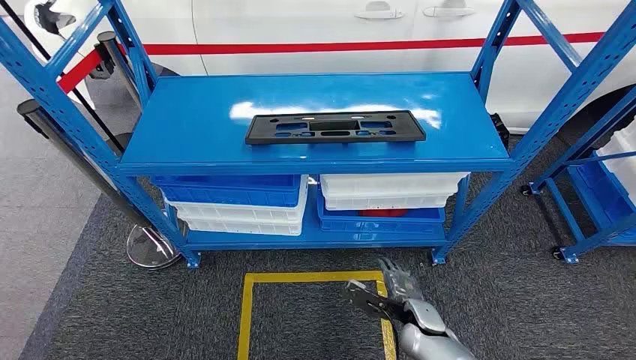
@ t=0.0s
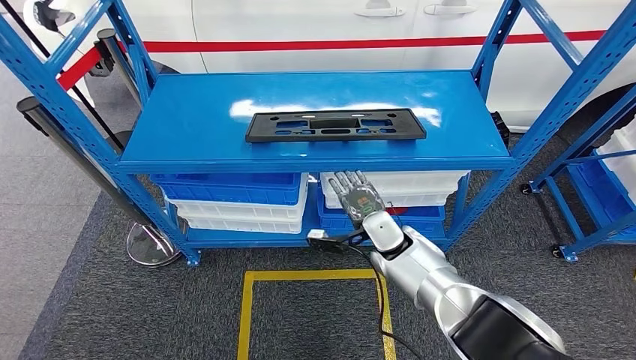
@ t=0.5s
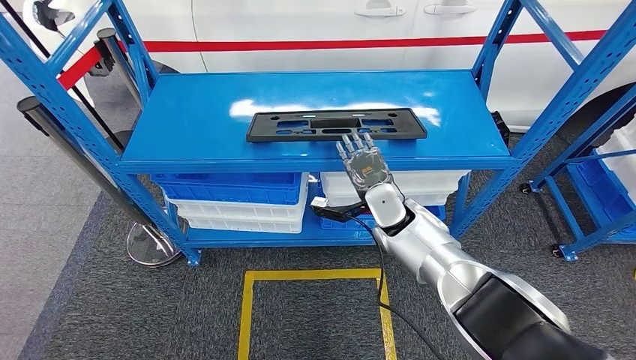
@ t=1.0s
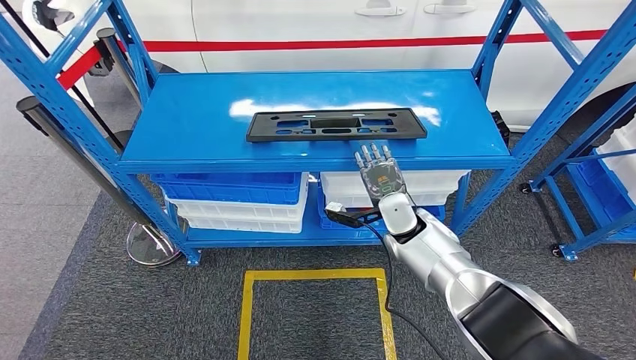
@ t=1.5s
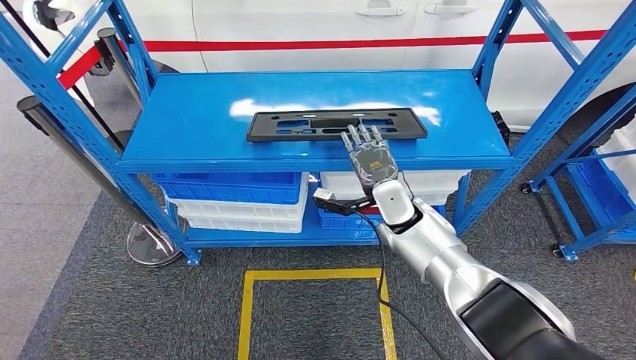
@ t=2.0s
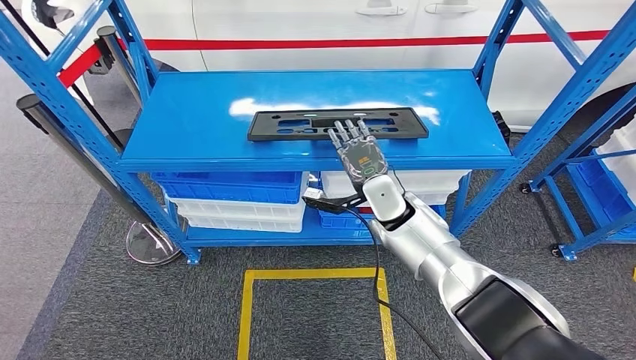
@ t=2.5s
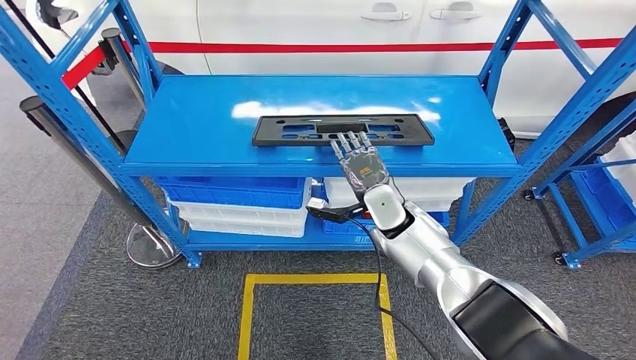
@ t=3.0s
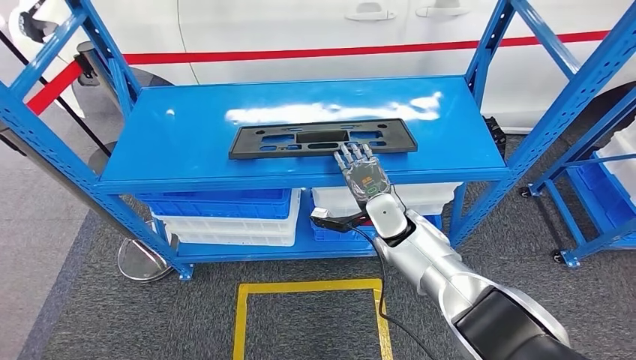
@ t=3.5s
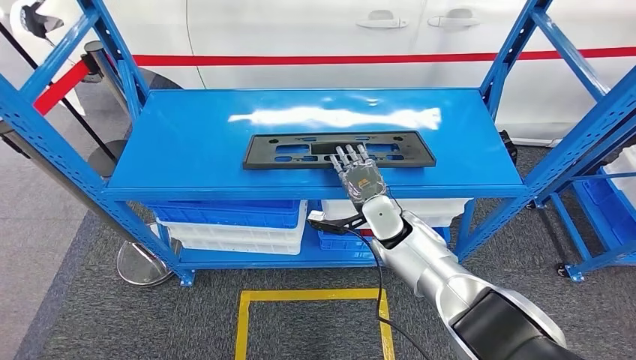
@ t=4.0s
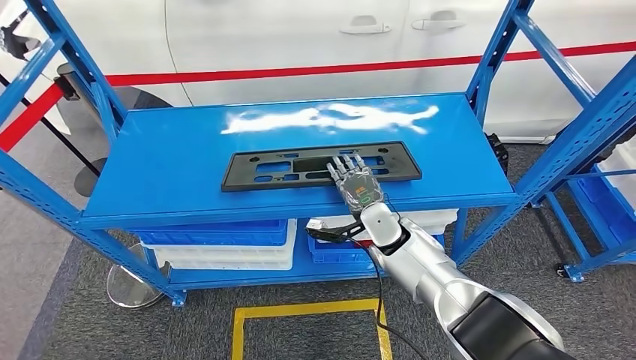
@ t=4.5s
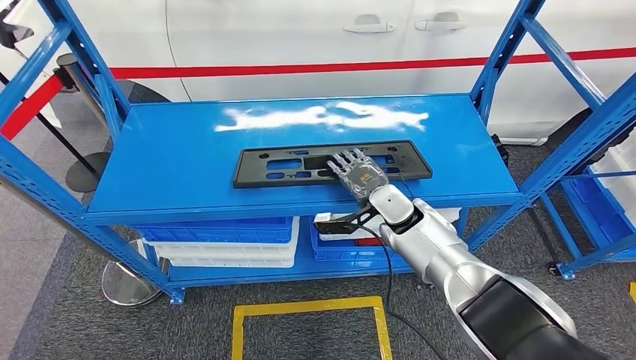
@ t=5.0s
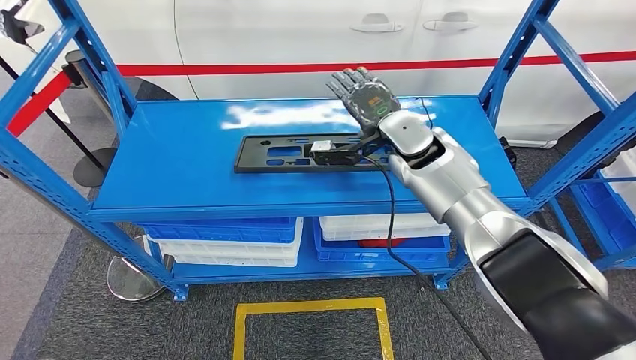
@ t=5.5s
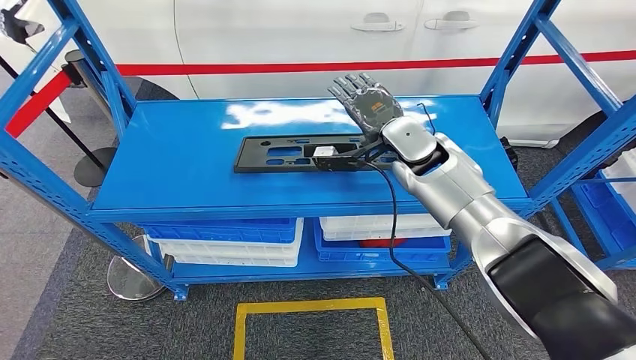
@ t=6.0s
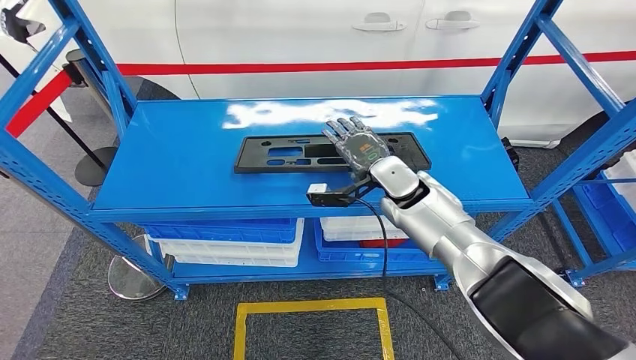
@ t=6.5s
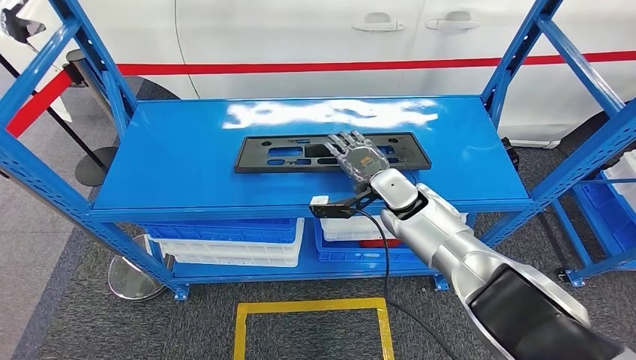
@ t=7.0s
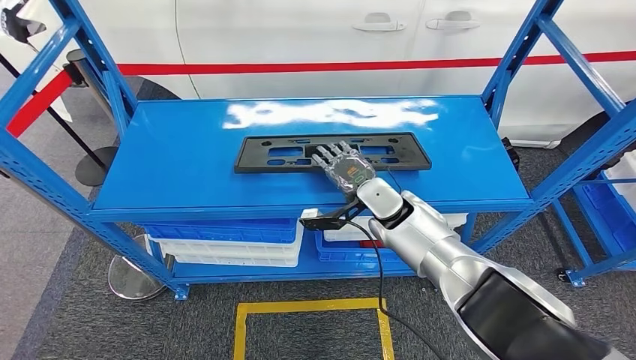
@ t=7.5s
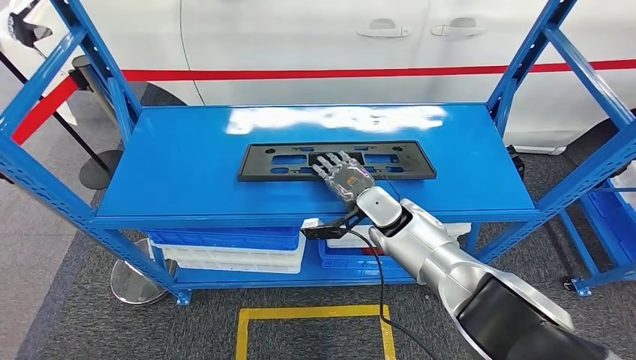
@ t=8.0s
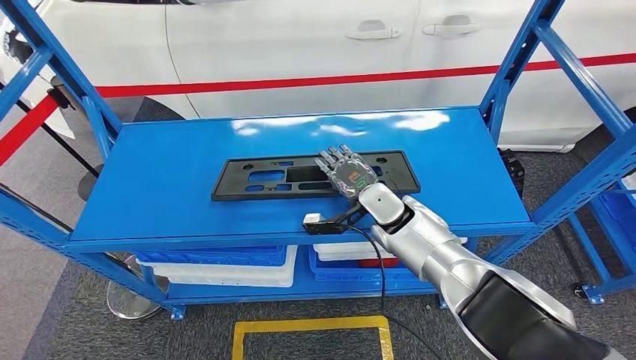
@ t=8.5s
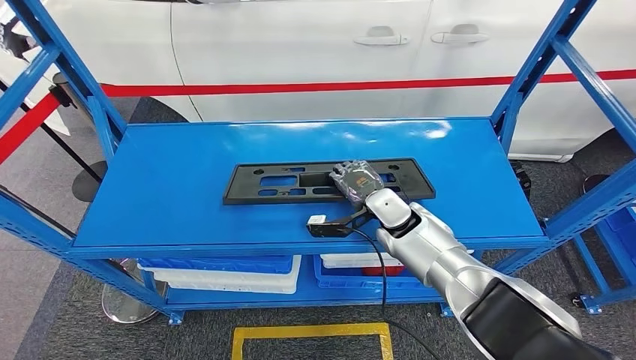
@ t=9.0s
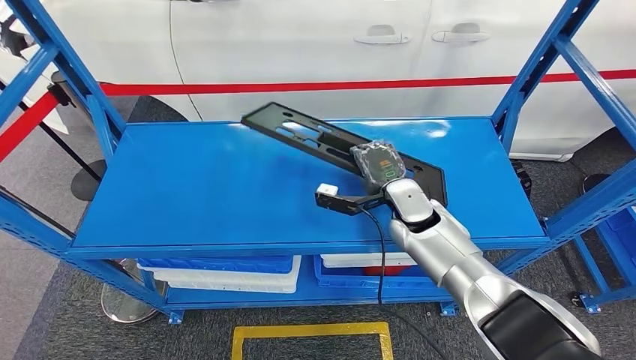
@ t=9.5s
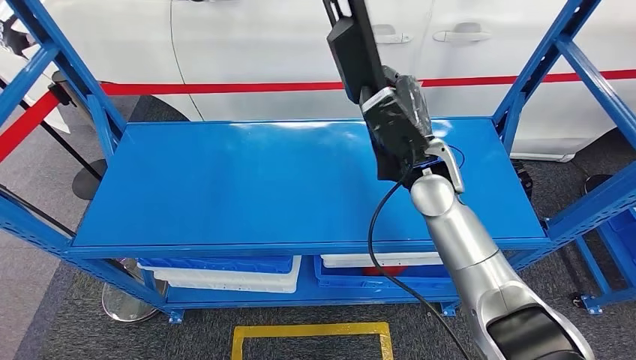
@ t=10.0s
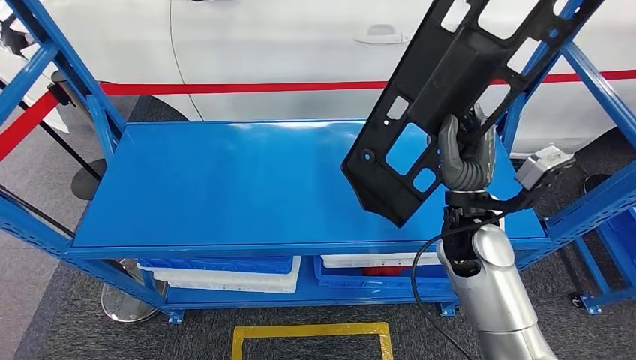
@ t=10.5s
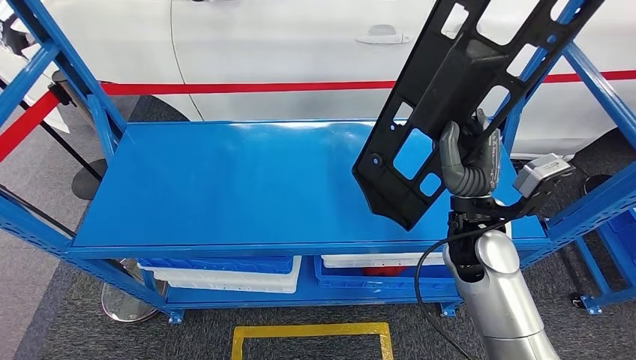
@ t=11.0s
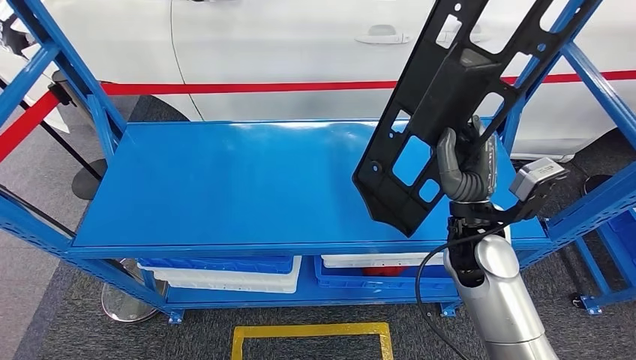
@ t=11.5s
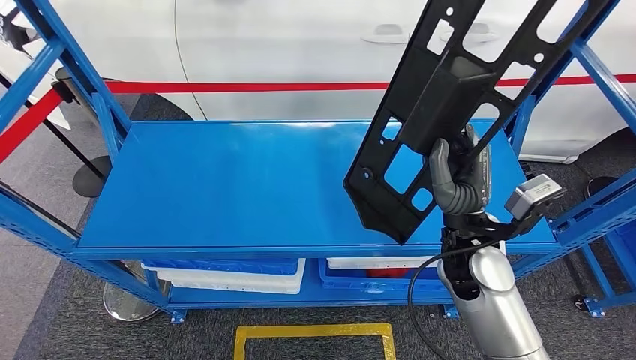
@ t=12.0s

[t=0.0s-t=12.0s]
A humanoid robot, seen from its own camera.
Step, t=0.0s to t=10.5s: Pick up the large material from the shelf.

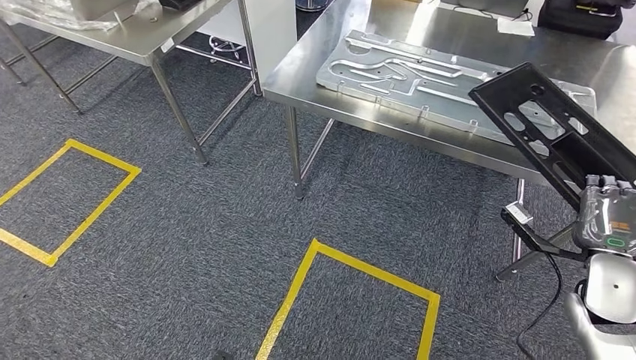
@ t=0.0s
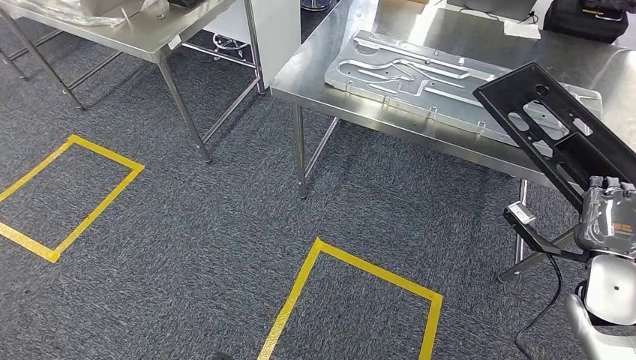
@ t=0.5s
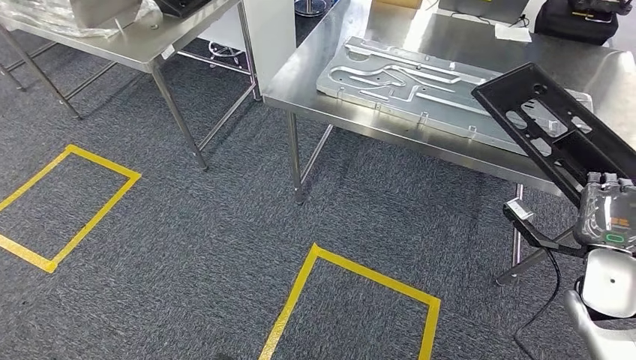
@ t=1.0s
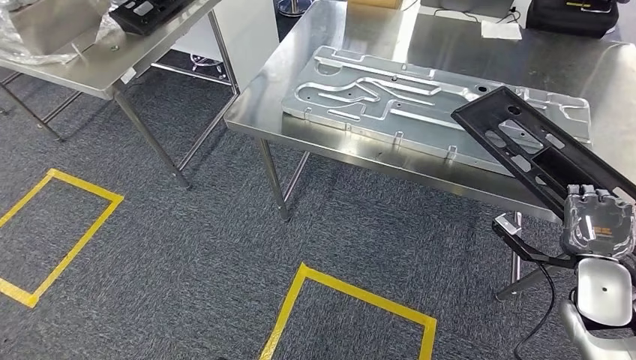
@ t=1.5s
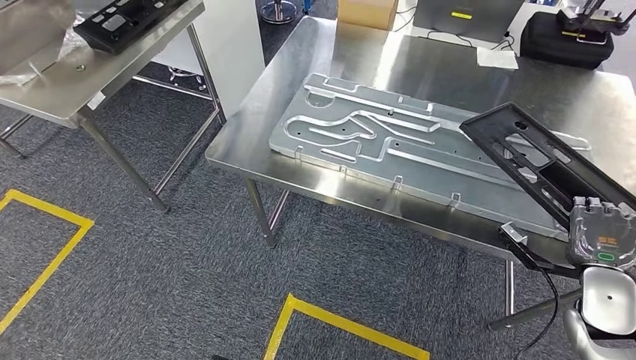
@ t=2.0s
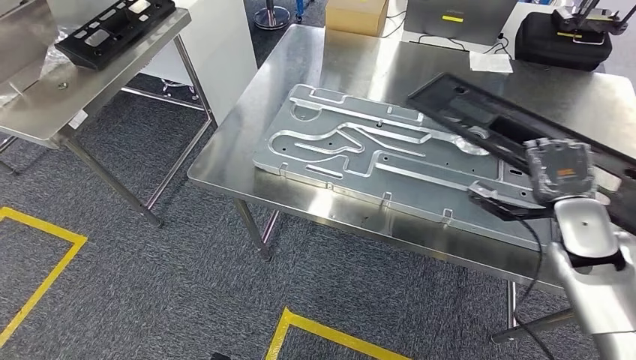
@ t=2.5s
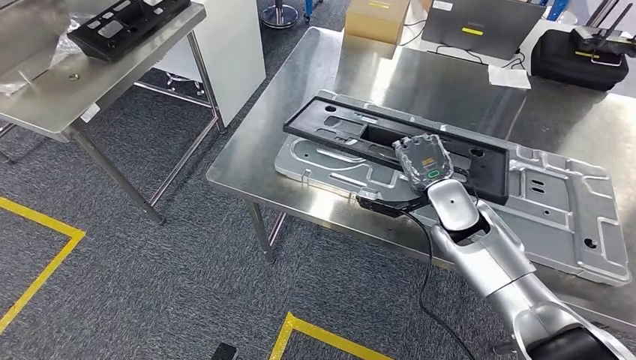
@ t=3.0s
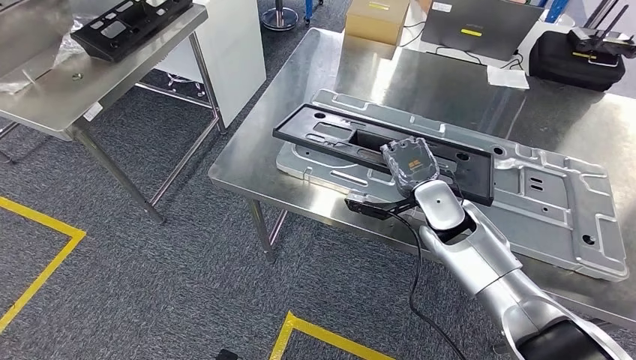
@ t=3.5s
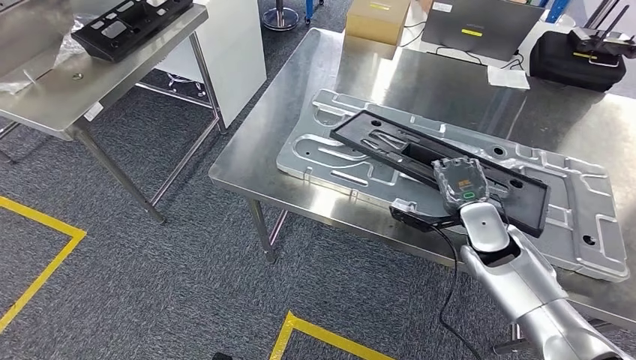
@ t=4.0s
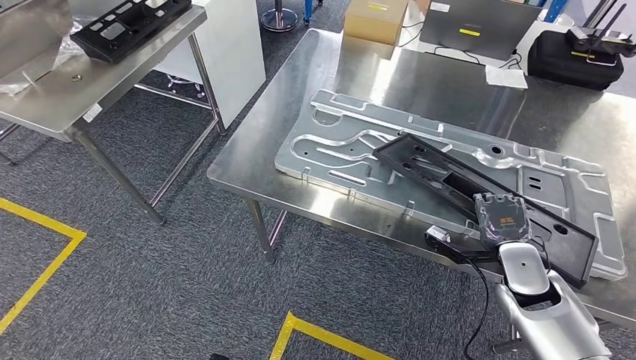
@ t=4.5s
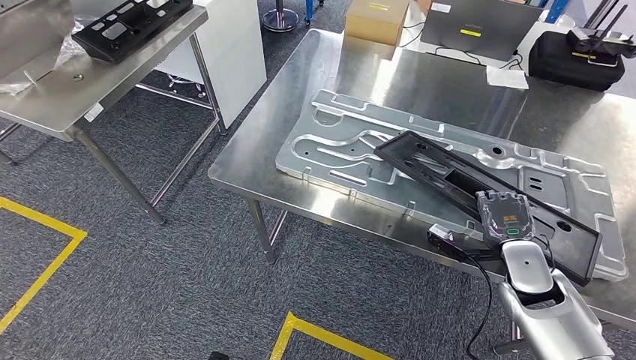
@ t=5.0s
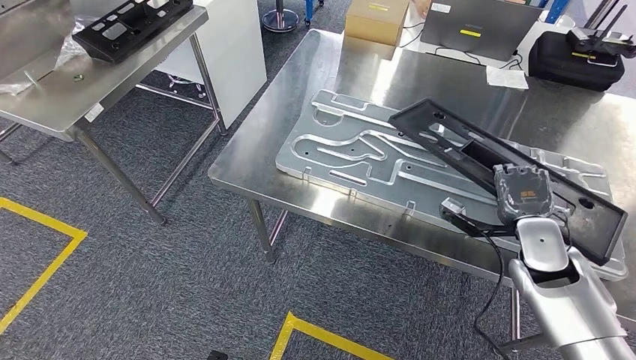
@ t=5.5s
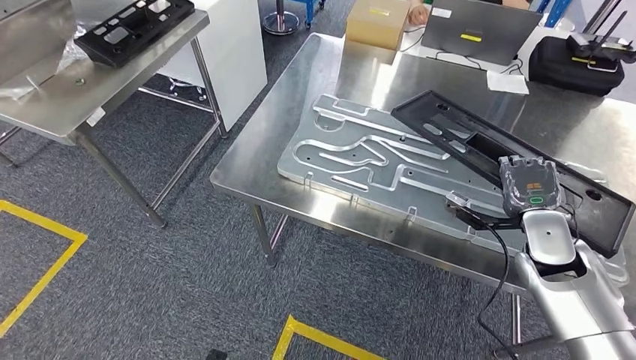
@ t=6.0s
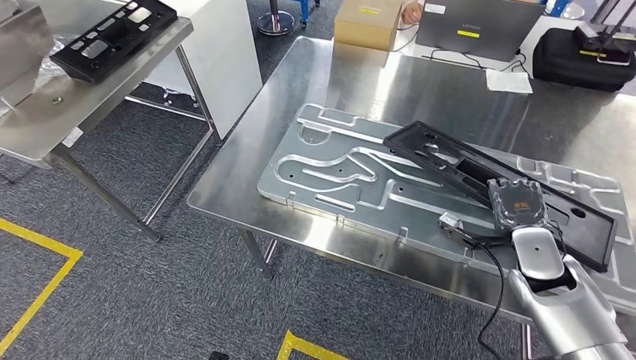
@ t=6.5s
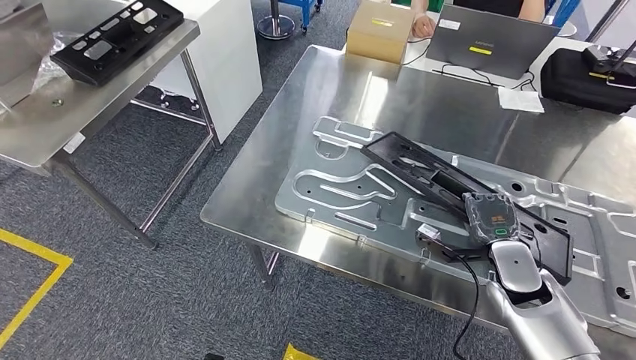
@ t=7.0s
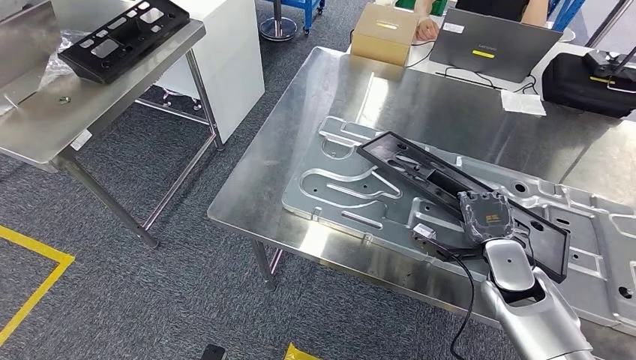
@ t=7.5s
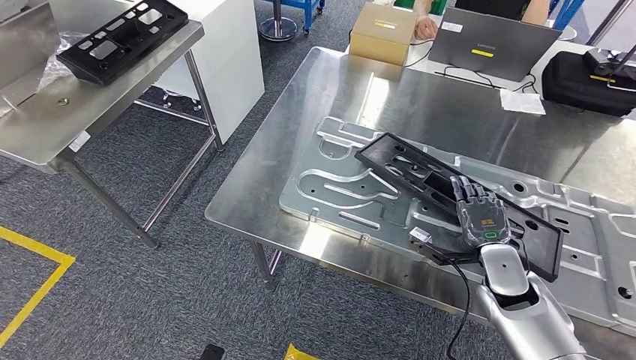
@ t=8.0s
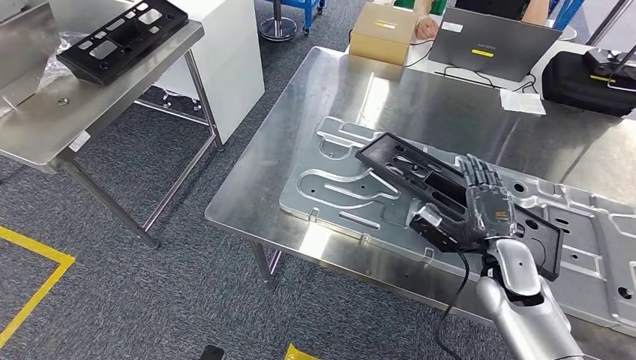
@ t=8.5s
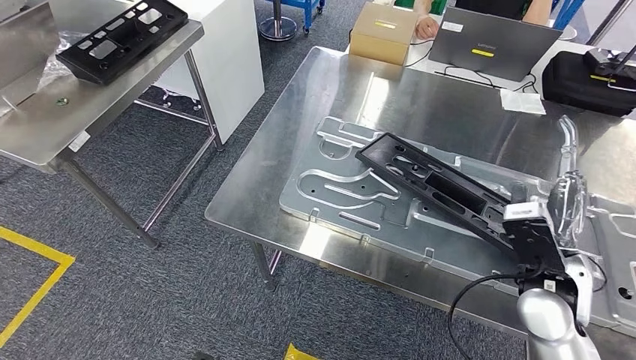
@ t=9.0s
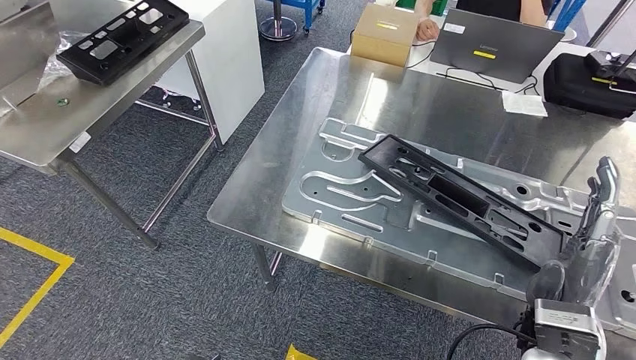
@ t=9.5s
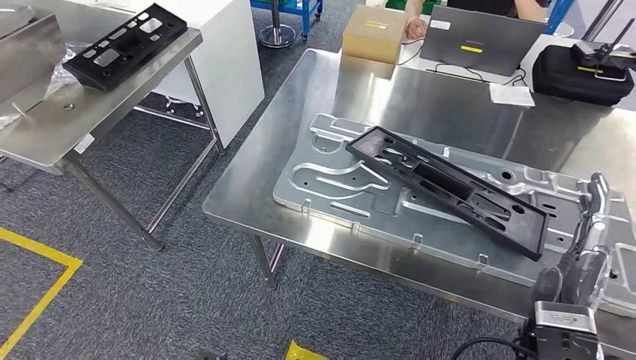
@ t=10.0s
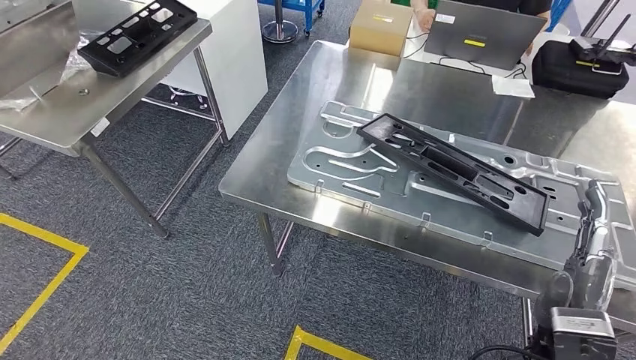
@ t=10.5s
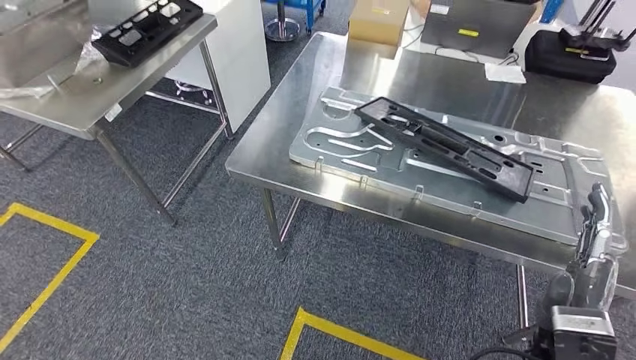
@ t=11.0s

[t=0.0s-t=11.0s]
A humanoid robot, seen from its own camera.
Step, t=0.0s to t=3.5s: Move the large material to the workbench.
Step, t=4.0s to t=9.5s: Insert the large material into the corresponding slot on the workbench.
t=3.5s to t=5.5s: The right hand goes roughly 15 cm to the right and backward.
t=7.5s to t=9.0s: The right hand heads upward and backward, covering approximately 10 cm.
